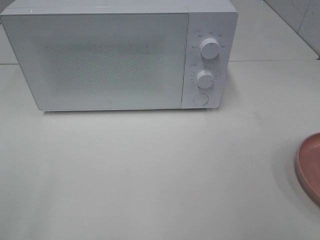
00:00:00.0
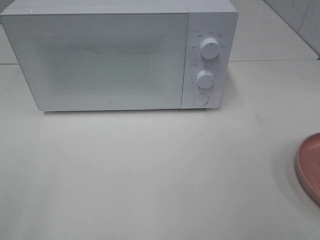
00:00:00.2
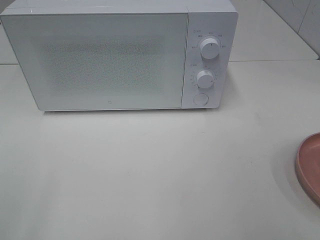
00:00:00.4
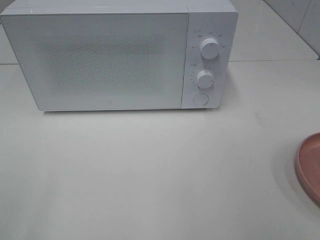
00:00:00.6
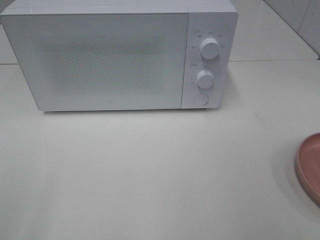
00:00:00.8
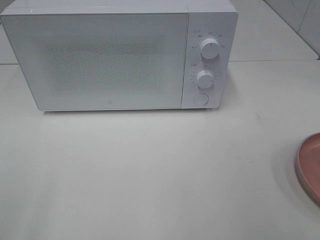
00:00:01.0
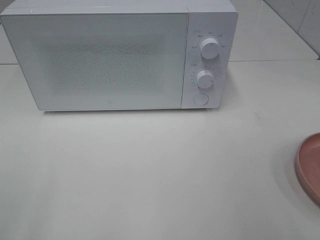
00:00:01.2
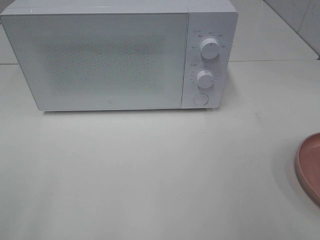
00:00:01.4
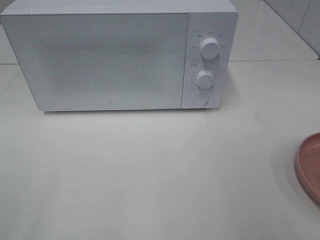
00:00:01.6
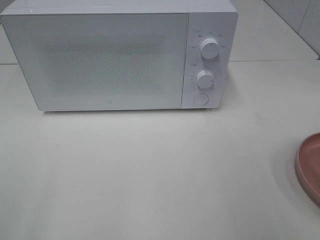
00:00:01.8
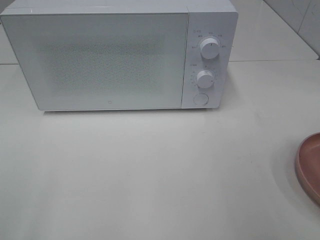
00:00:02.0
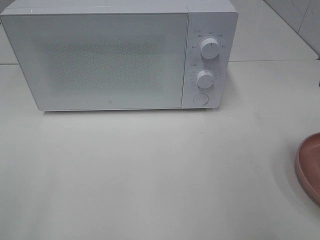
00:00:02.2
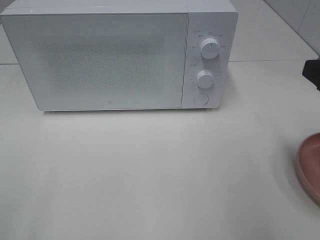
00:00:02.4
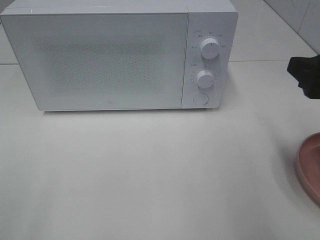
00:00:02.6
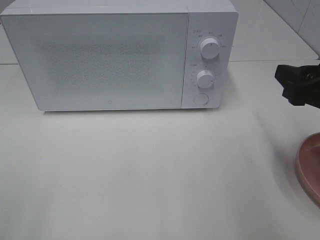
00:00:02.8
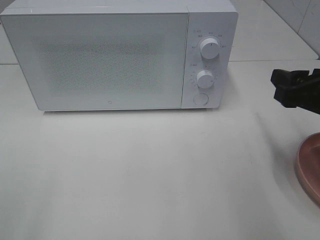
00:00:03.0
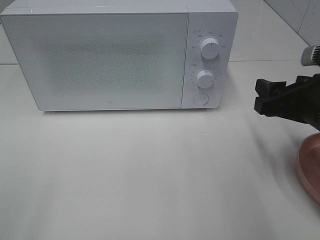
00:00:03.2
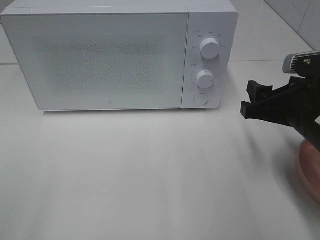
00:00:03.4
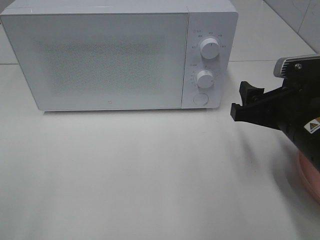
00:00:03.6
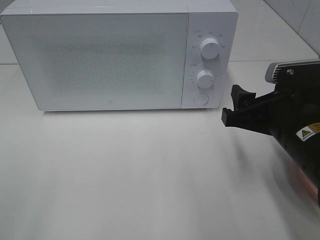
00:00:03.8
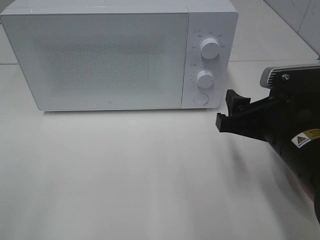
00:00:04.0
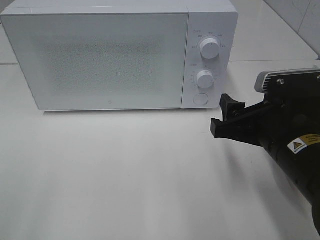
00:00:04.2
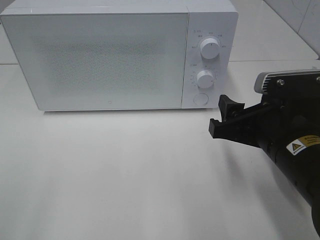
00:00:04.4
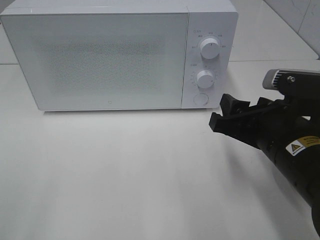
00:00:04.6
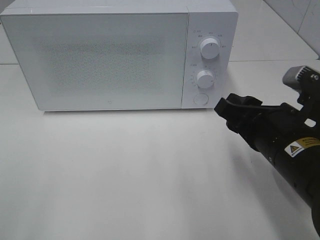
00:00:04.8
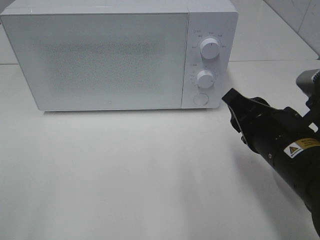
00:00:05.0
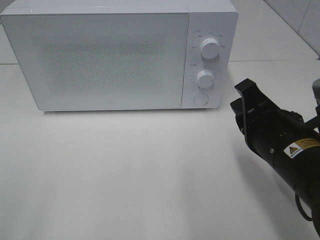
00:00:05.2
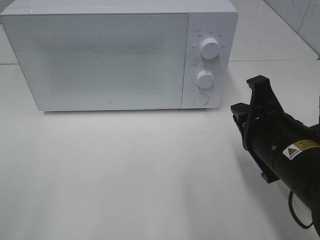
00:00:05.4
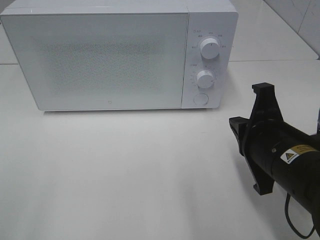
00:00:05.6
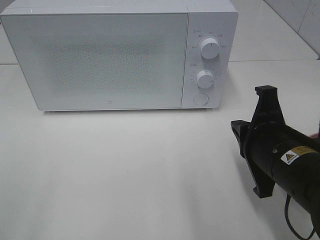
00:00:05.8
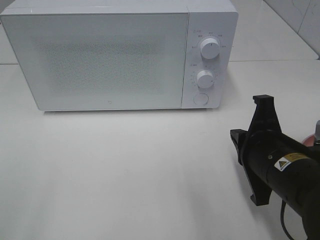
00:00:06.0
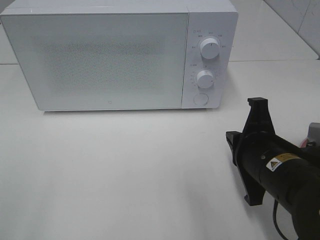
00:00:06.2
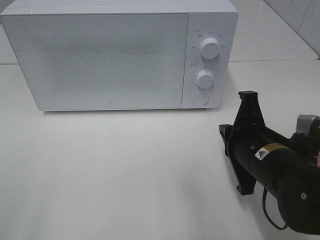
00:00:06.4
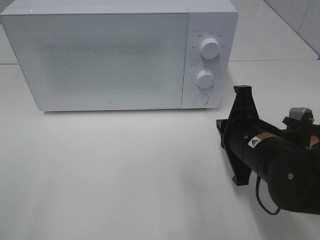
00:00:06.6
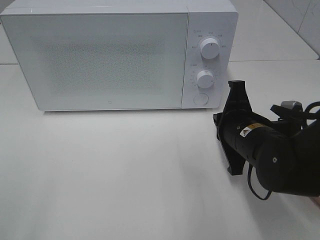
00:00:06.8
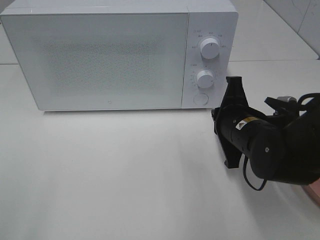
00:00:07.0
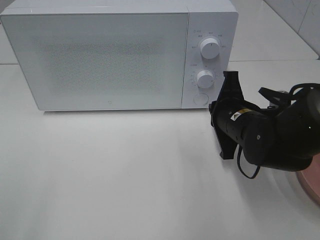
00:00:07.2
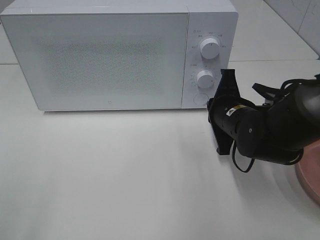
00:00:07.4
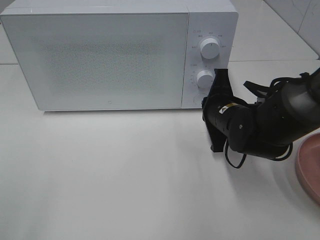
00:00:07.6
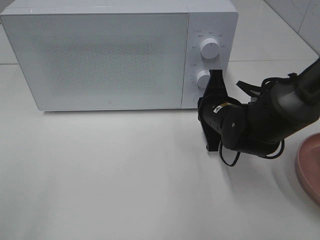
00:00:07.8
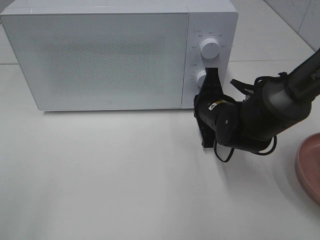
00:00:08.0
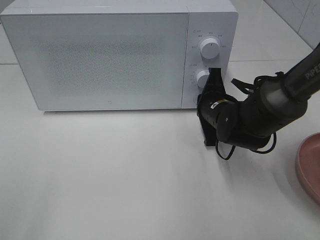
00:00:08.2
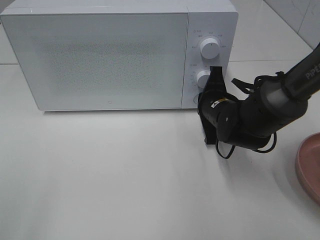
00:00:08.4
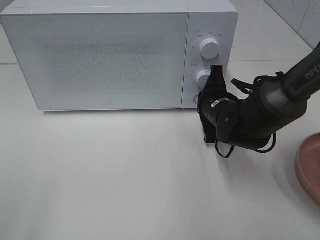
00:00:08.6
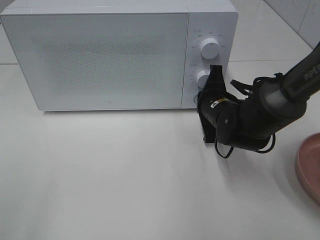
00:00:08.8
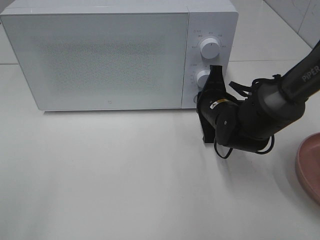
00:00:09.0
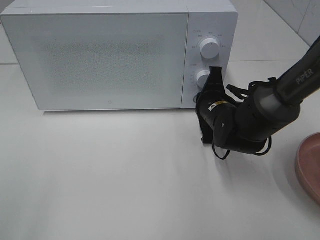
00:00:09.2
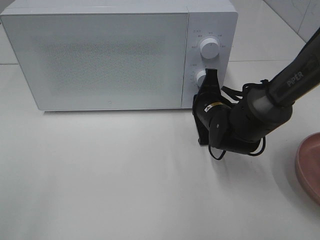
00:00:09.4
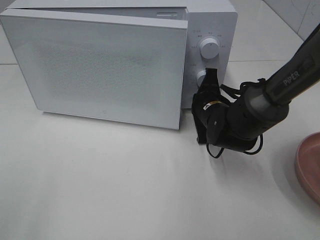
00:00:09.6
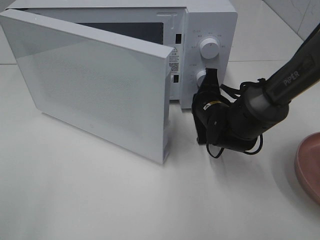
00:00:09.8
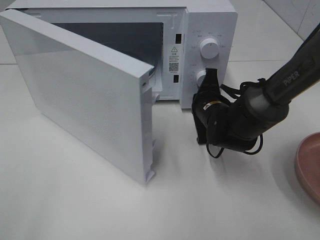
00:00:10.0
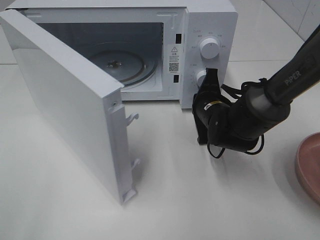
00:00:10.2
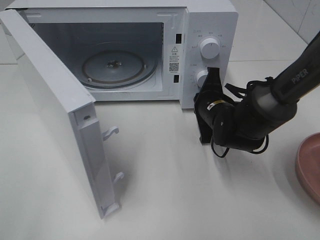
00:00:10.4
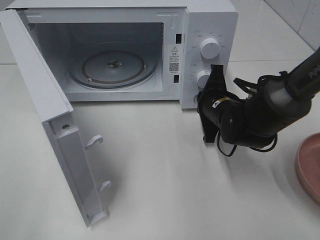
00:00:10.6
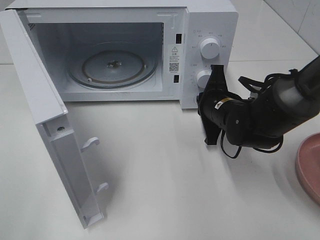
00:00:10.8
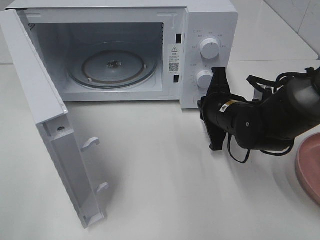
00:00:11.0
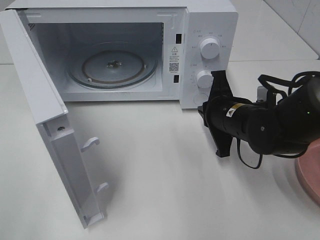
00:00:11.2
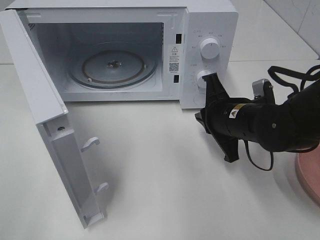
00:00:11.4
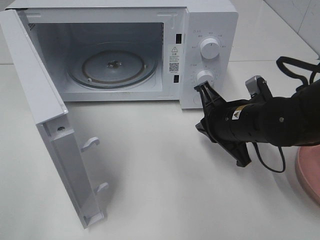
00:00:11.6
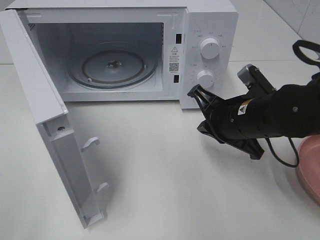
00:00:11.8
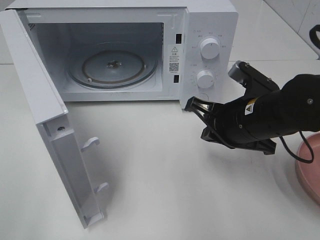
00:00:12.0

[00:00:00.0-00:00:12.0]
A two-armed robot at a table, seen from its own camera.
Task of the whole recording: Heat the burger.
Step, 00:00:00.0 to 00:00:11.0: Right hand: press the switch.
00:00:01.6 to 00:00:03.0: The right gripper goes approximately 15 cm forward and downward.
00:00:03.0 to 00:00:04.4: The right gripper travels to the left by roughly 10 cm.
00:00:04.4 to 00:00:06.0: The right gripper closes.
00:00:06.0 to 00:00:07.6: The right gripper heads forward, covering about 15 cm.
00:00:07.6 to 00:00:09.0: The grippers stay close to where they were, moving slightly.
00:00:10.4 to 00:00:12.0: The right gripper travels backward and upward by approximately 10 cm.

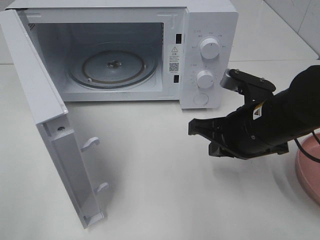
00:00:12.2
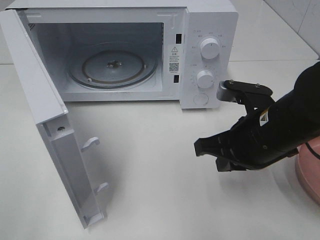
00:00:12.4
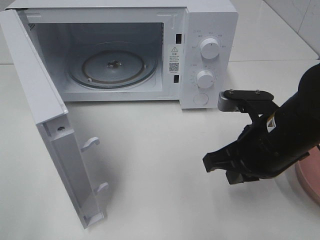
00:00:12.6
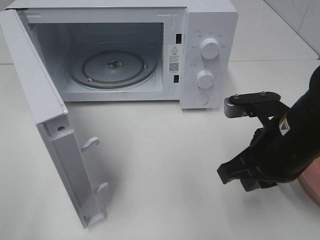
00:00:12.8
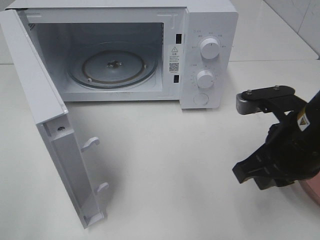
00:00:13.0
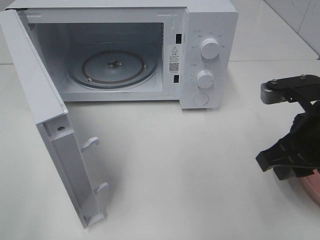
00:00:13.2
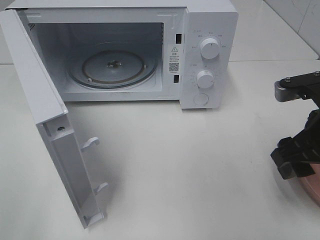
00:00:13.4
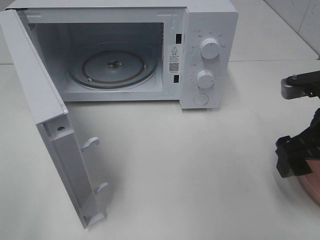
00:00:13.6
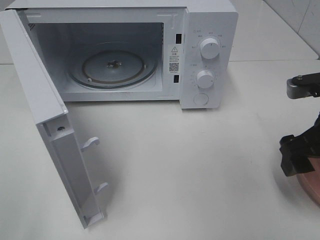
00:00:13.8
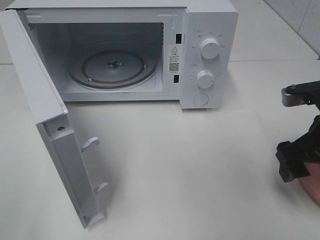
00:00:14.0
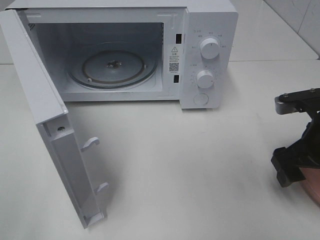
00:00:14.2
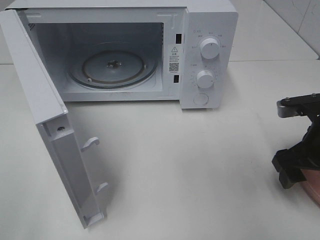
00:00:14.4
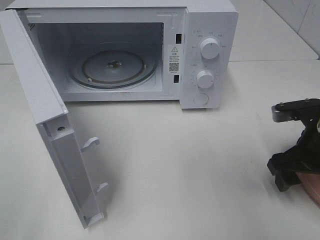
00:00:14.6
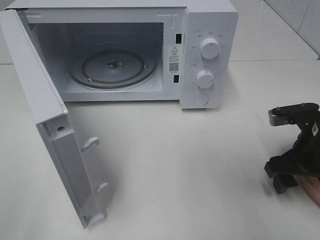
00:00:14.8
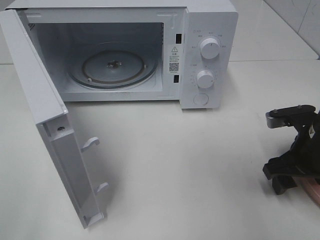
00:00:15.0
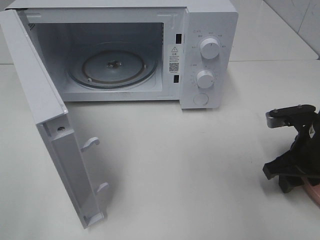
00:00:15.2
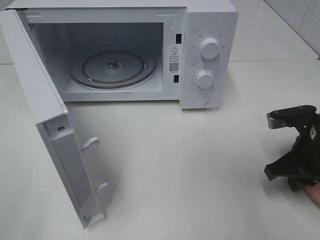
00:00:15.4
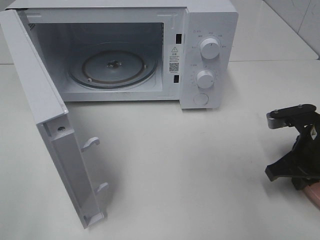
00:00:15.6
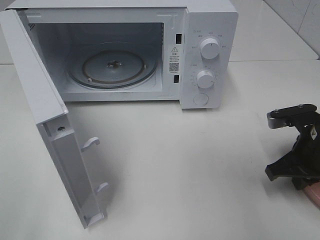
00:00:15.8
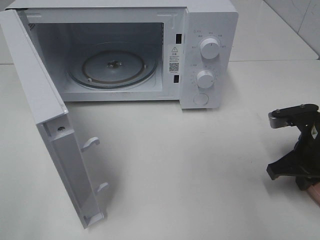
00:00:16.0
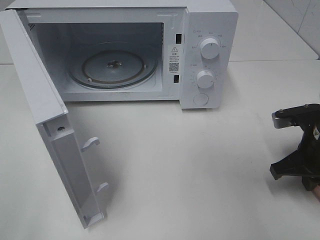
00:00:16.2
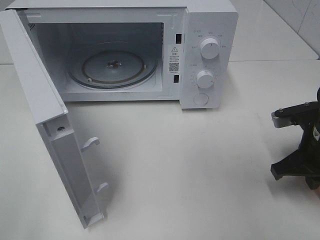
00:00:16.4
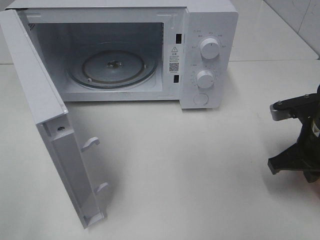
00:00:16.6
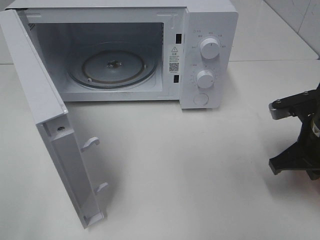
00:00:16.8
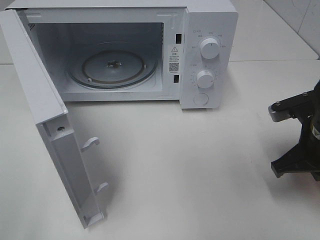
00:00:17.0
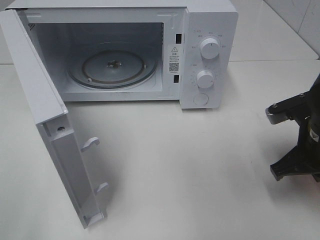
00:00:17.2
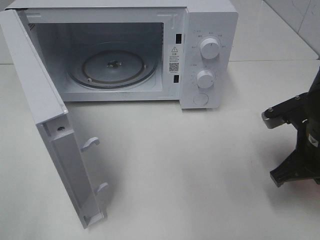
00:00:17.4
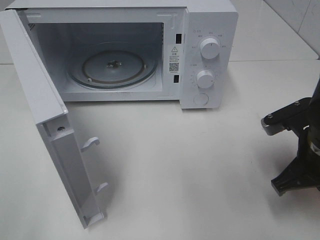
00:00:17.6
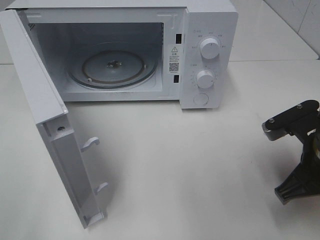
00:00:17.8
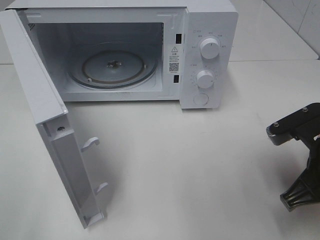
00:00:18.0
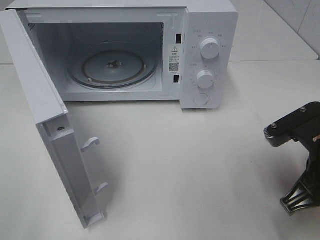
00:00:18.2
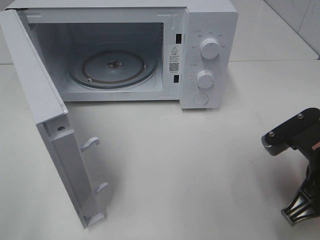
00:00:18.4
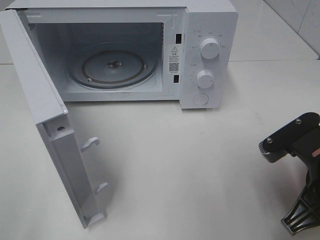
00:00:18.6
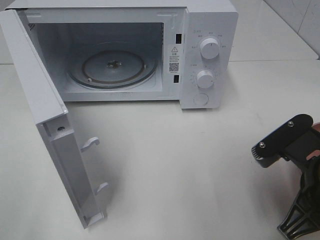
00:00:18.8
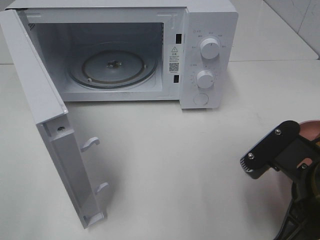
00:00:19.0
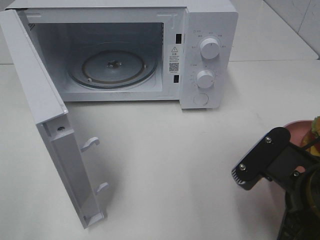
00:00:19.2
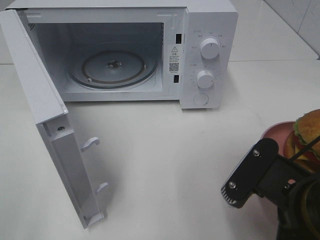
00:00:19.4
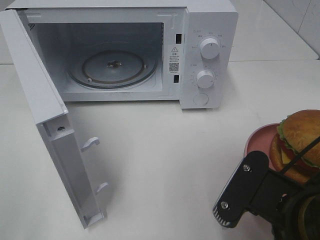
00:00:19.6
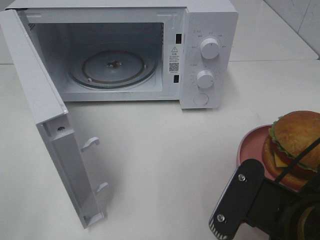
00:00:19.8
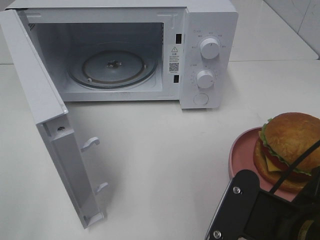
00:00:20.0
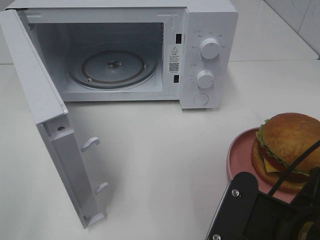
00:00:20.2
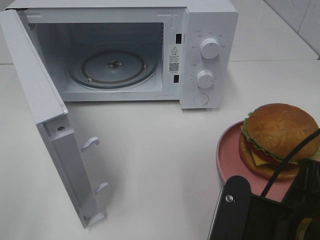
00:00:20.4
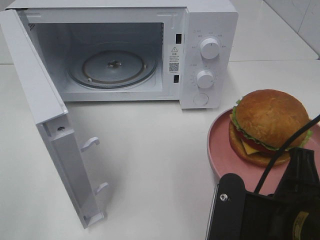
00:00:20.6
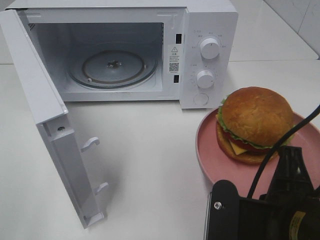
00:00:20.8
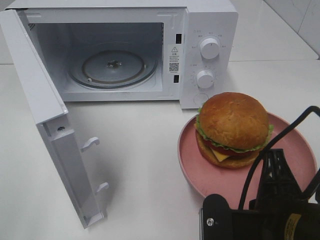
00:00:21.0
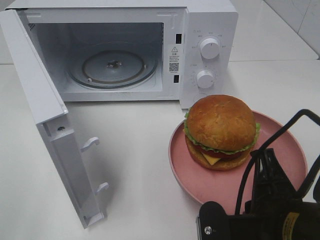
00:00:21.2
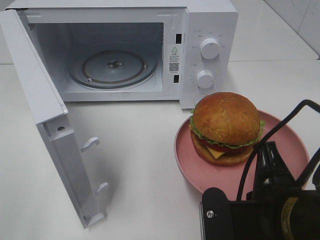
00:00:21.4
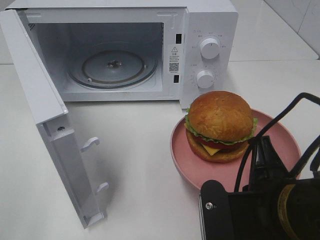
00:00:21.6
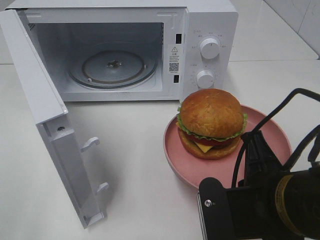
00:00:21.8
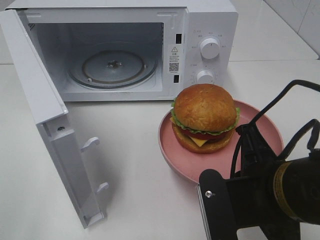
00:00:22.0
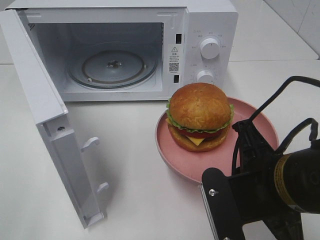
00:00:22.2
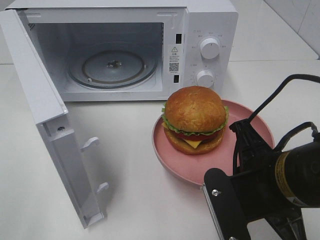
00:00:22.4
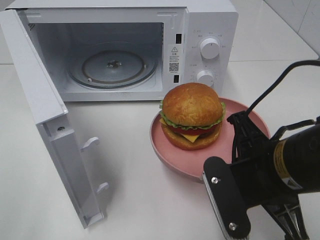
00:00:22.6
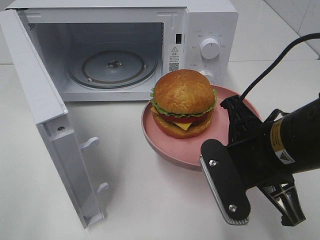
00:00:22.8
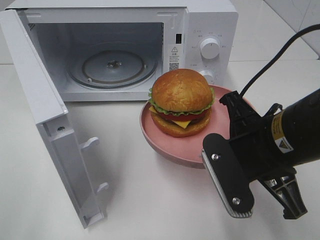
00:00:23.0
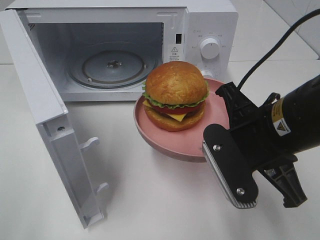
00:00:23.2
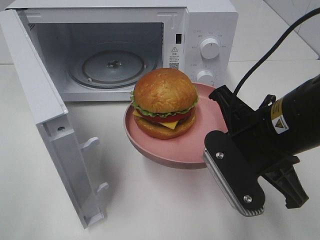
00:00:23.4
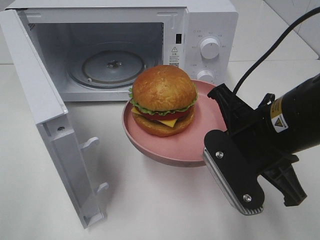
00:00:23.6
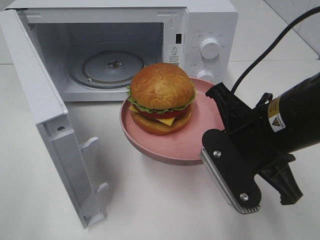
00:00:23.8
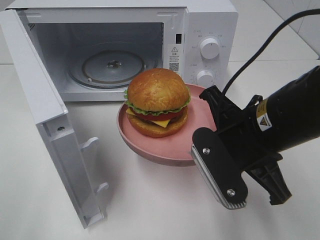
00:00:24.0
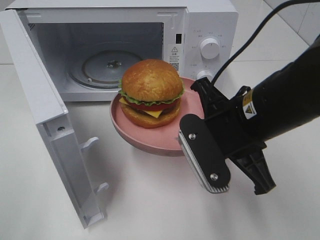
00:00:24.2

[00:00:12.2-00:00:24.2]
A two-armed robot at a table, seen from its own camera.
Task of the whole recording: Heat the burger.
Step, 00:00:12.2 to 00:00:16.4: Right hand: grab the plate with the hamburger.
00:00:12.2 to 00:00:13.8: The right gripper heads to the right, covering roughly 10 cm, and opens up.
00:00:13.8 to 00:00:15.2: The right gripper moves downward, approximately 10 cm.
00:00:15.2 to 00:00:16.6: The right gripper closes up.
00:00:16.6 to 00:00:18.2: The right gripper is displaced backward by some 5 cm.
00:00:18.2 to 00:00:19.8: The right gripper travels backward and to the left by about 10 cm.
00:00:21.2 to 00:00:22.6: The right gripper moves forward, about 5 cm.
00:00:22.6 to 00:00:24.2: The right gripper is displaced forward by about 5 cm.
